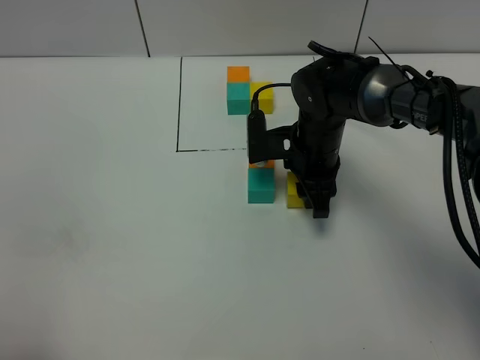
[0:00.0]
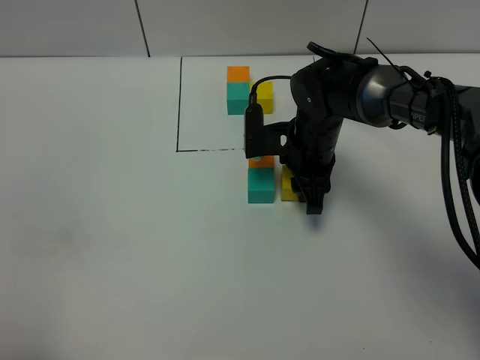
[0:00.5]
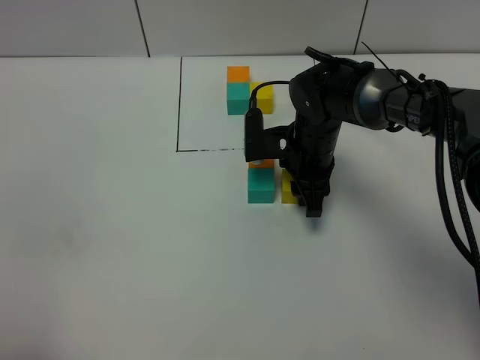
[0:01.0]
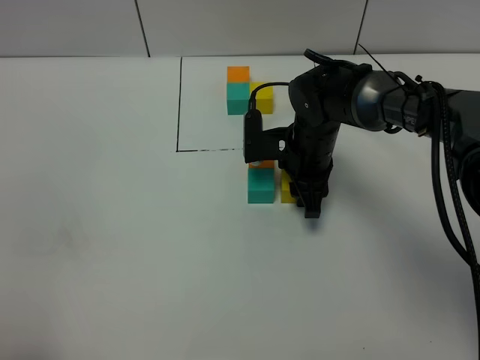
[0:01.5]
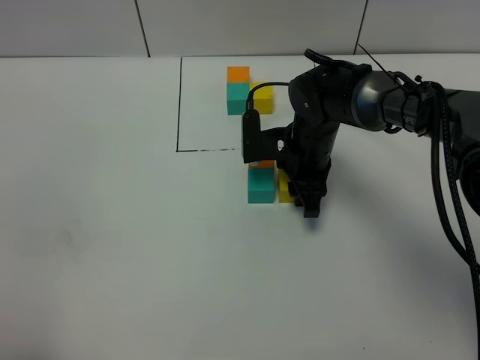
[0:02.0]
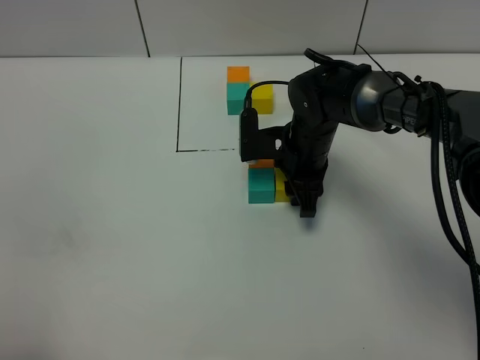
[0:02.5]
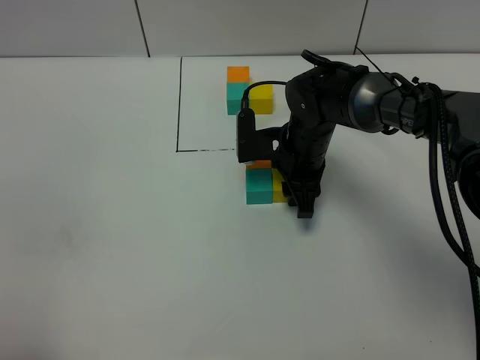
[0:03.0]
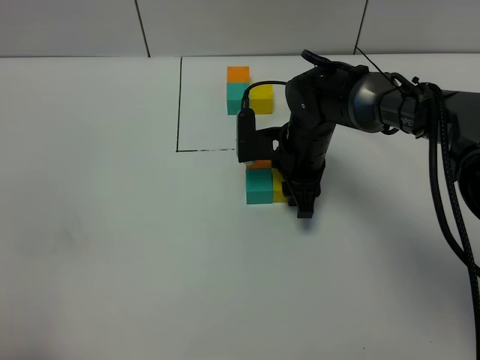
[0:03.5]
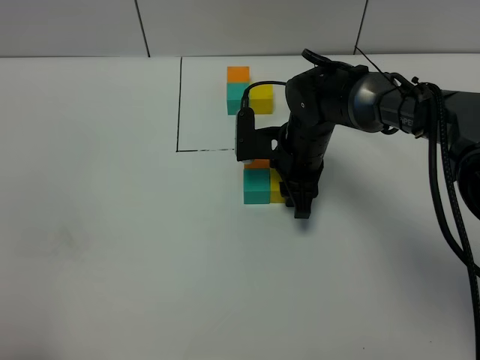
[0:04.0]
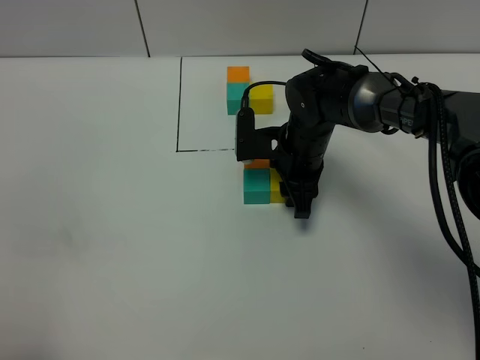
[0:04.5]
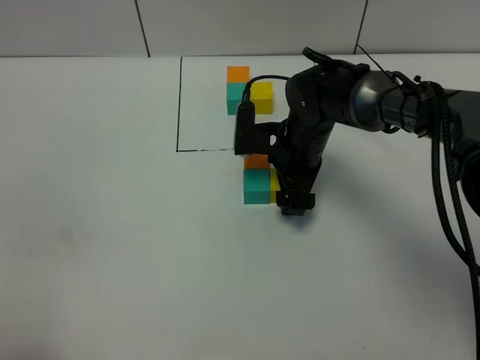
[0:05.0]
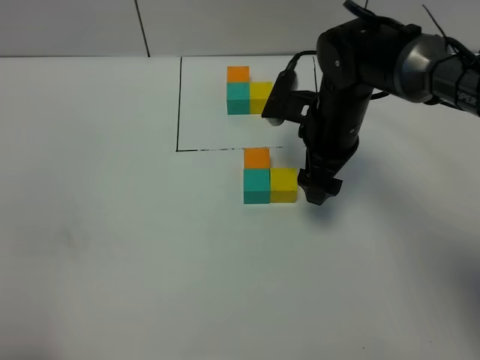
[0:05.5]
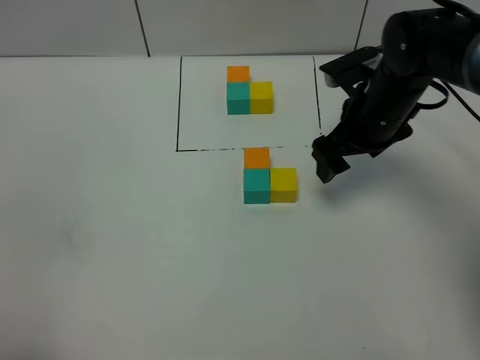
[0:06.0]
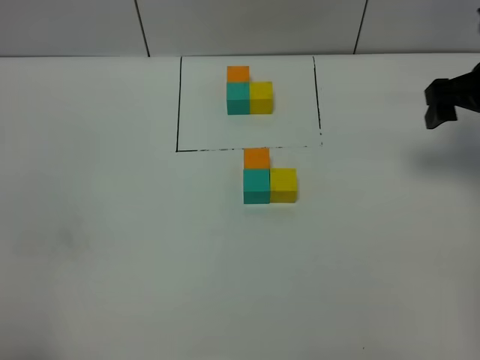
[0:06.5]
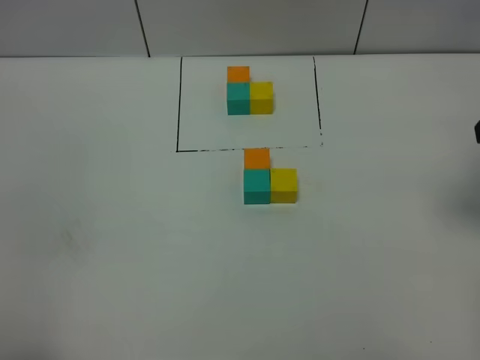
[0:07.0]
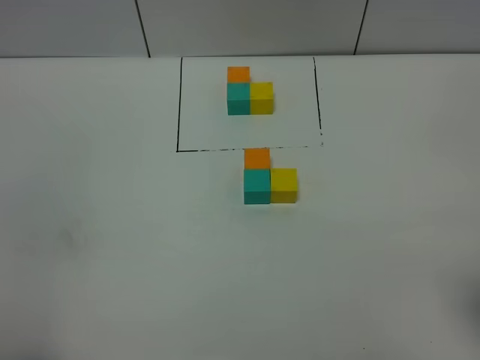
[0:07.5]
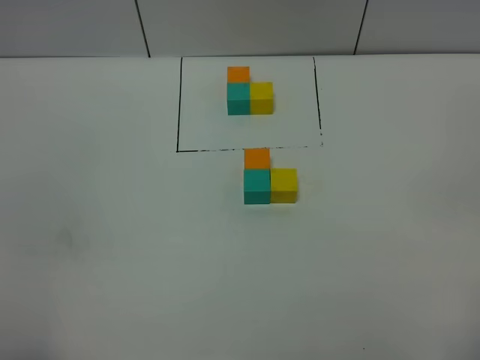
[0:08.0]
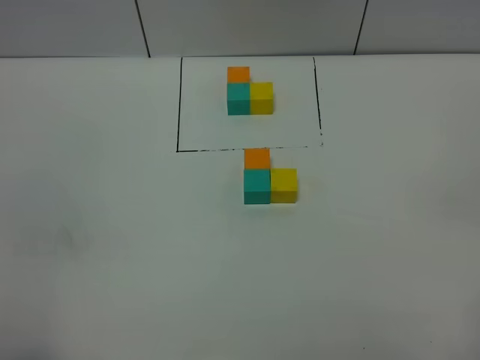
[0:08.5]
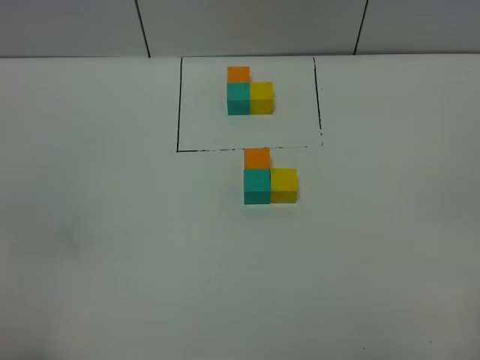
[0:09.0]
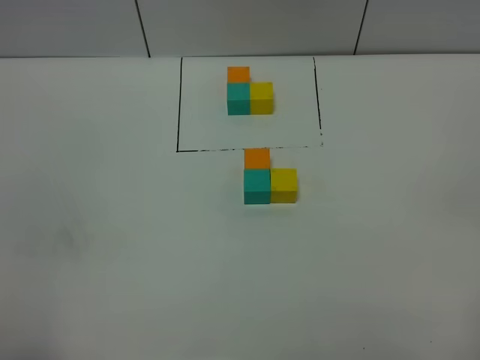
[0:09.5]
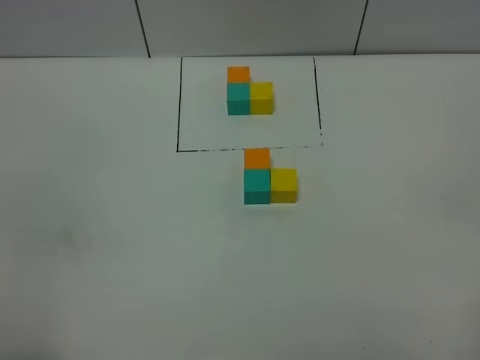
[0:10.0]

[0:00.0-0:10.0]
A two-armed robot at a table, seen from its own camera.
Task of the whole recording: According to the building block template in front, assemble the scattered blocks together.
Step, 0:00.0 to 0:04.5: Put the yellow build block on the right of the green build block.
0:00.0 to 0:02.0: The grippers move only a little.
0:02.0 to 0:04.0: Both grippers stay about where they are.
0:04.0 to 0:06.0: The right gripper shifts about 10 cm to the right and upward, and opens its fingers.
0:06.0 to 0:08.0: The right gripper travels backward by about 35 cm.
